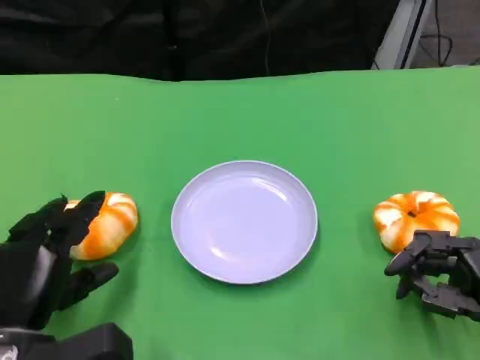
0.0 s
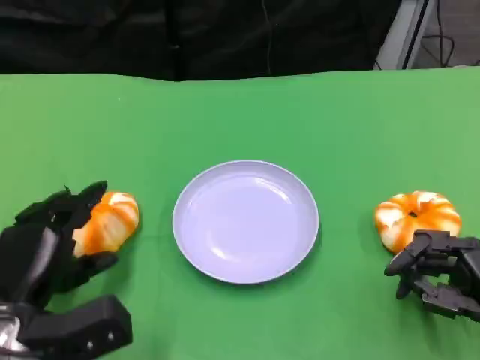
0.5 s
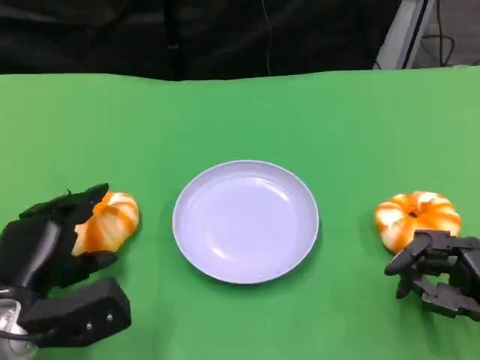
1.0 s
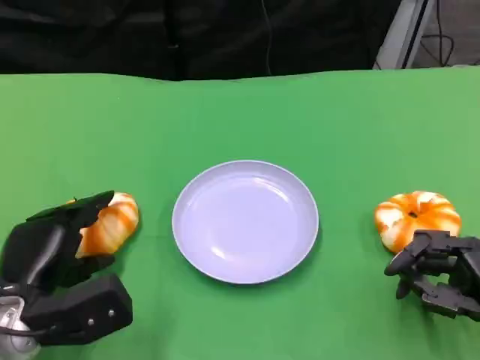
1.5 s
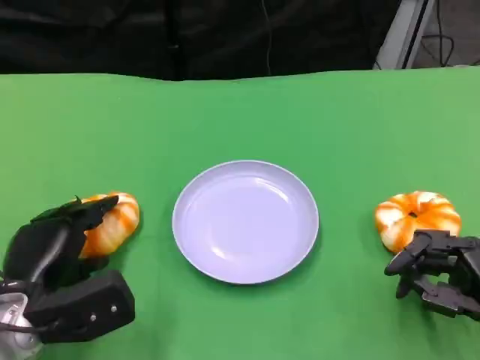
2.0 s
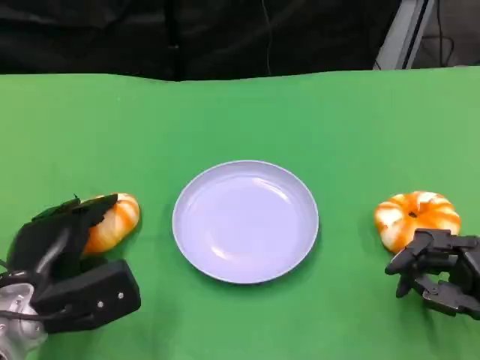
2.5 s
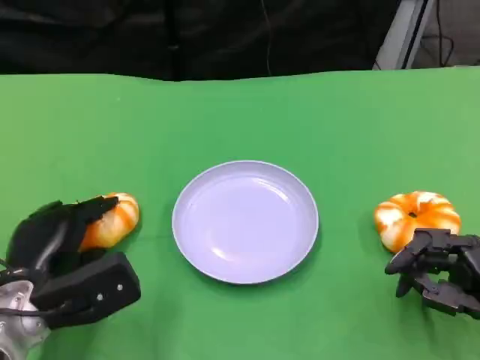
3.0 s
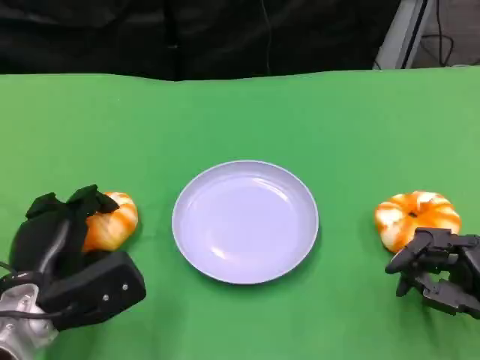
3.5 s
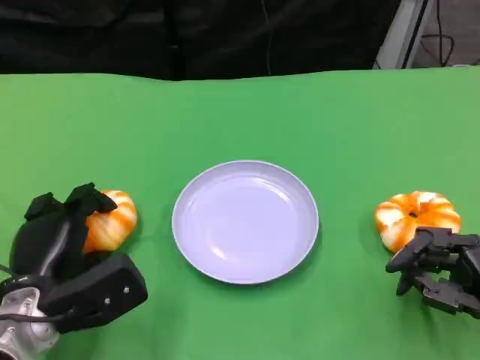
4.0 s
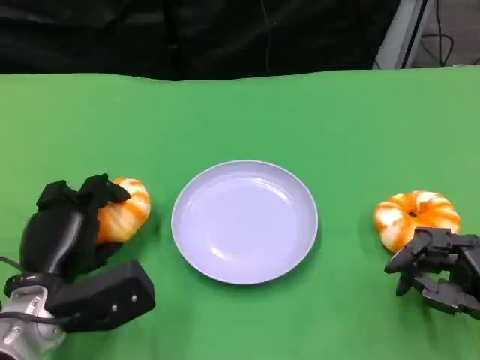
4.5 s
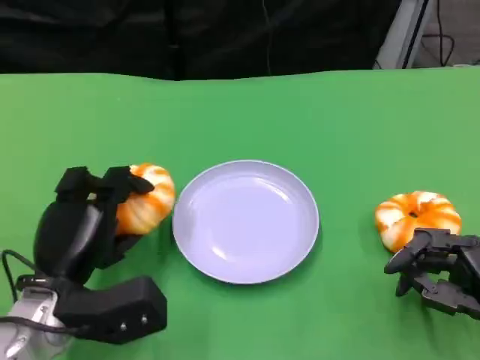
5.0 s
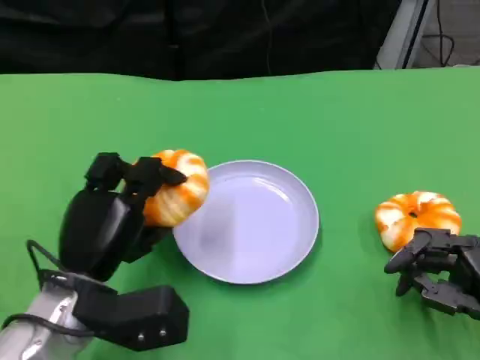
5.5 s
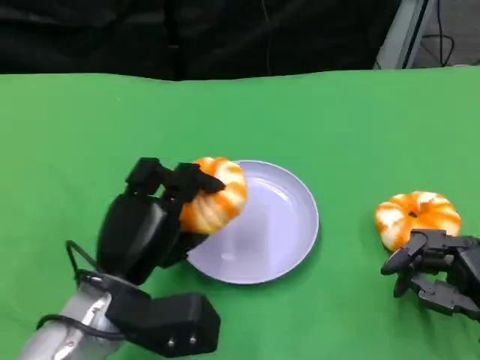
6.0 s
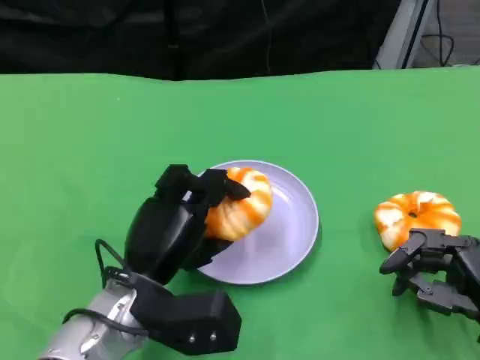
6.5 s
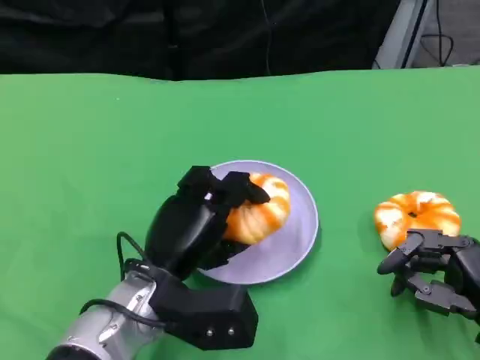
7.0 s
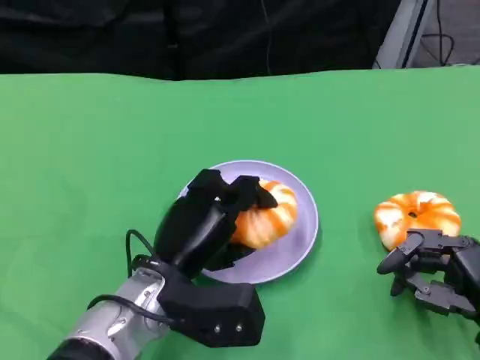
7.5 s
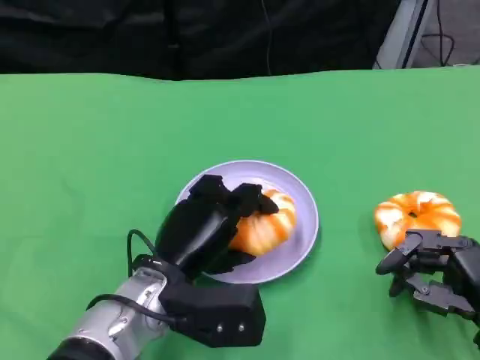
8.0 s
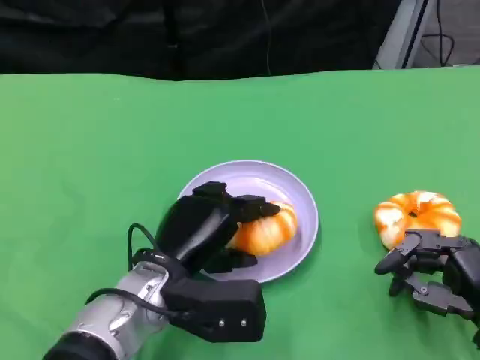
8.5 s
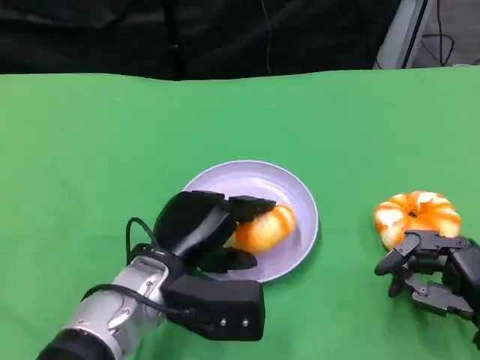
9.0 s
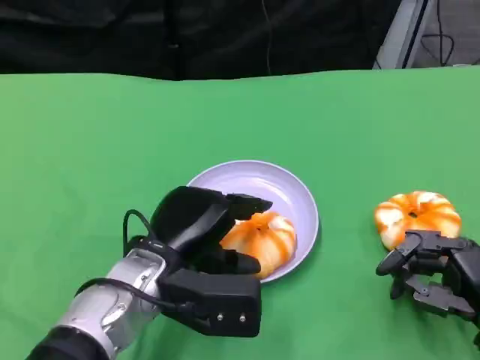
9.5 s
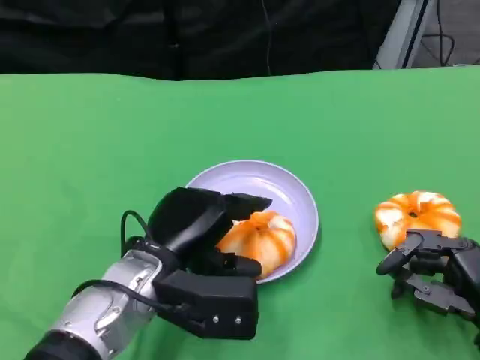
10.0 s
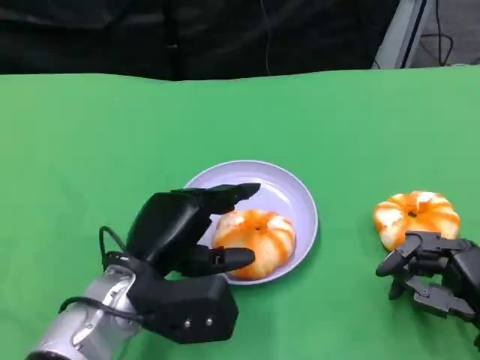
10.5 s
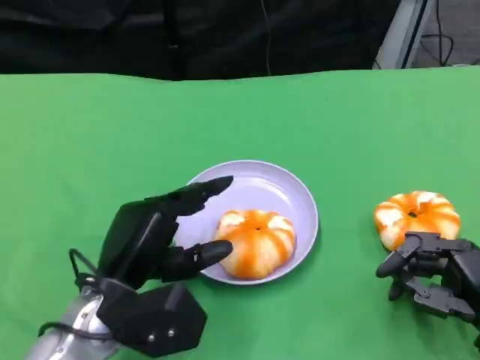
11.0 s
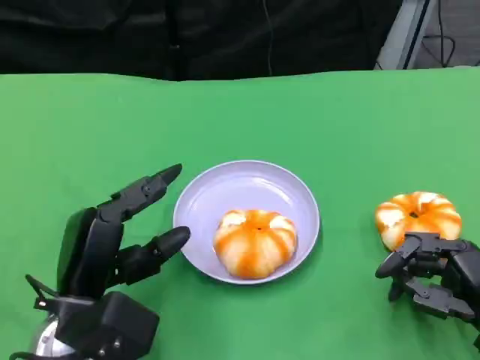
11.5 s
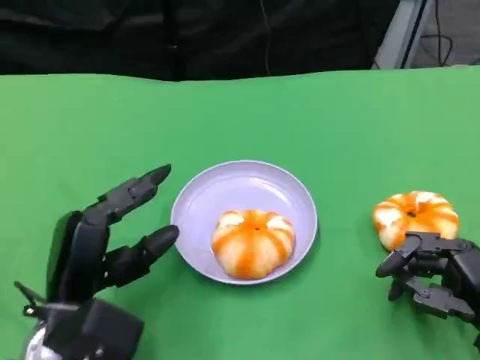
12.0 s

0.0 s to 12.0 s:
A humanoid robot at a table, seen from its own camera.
Task of the whole recording: Grasp the bread from the table and place it into the plate.
2.0 to 4.0 s: The hands stay close to where they were, moving slightly.
4.0 to 6.0 s: The left hand heads to the right, covering approximately 5 cm.
6.0 to 8.0 s: The hands make only small movements.
8.0 to 10.0 s: There are only small adjustments of the hands.
10.0 to 12.0 s: The left hand is displaced to the left by approximately 5 cm.

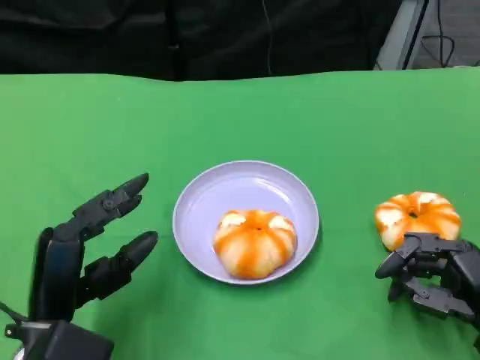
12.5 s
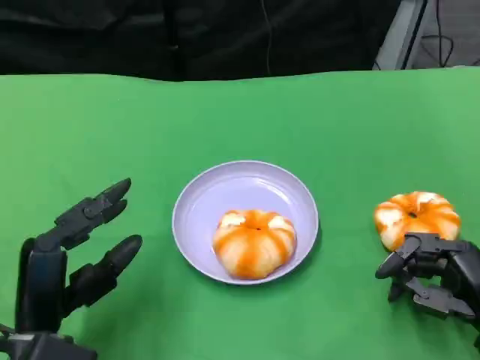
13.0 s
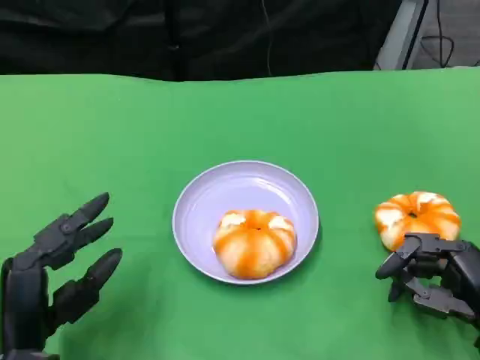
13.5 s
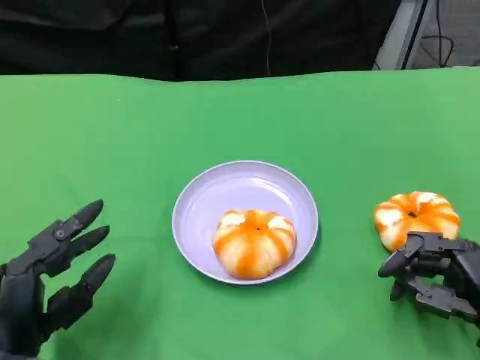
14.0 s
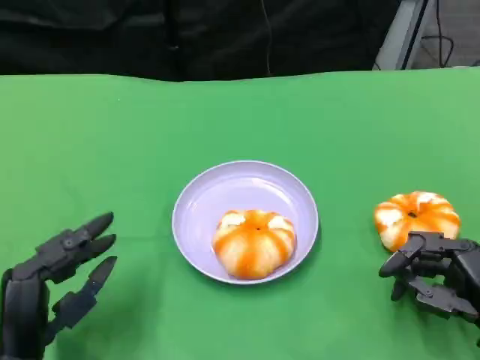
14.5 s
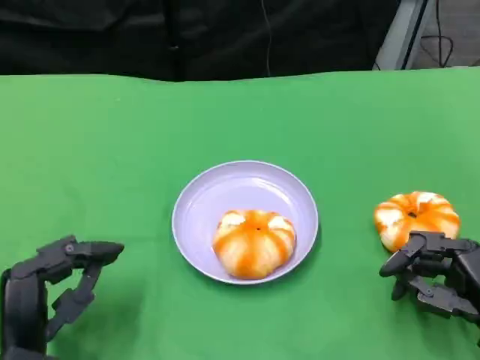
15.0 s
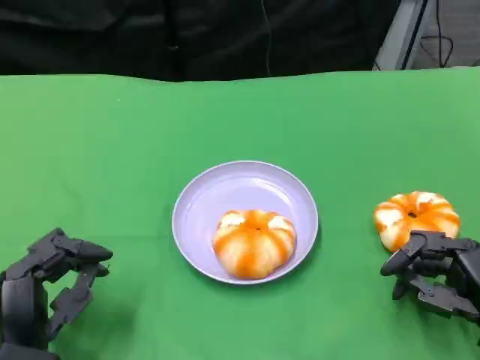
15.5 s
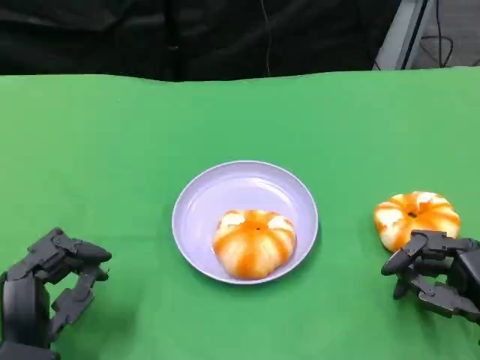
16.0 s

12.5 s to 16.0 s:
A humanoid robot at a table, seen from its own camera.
Task of the whole recording: Grasp the bread from the table and place it into the plate.
12.5 to 16.0 s: The hands move only a little.

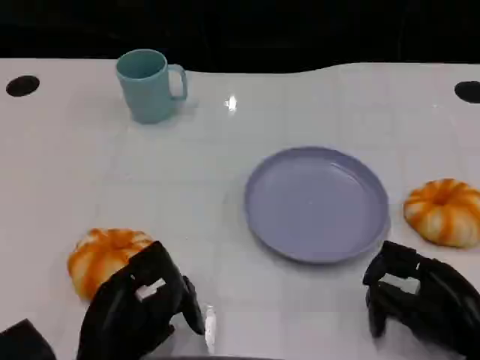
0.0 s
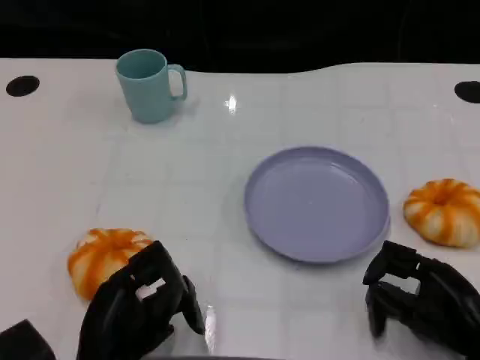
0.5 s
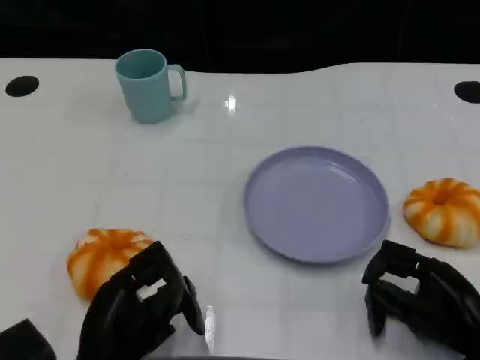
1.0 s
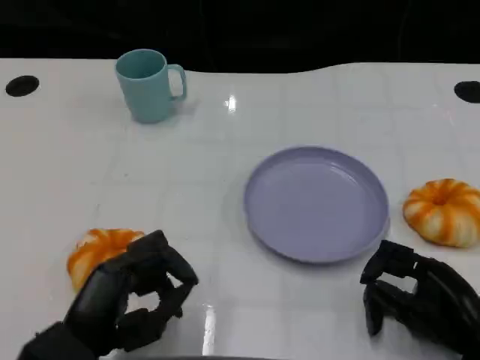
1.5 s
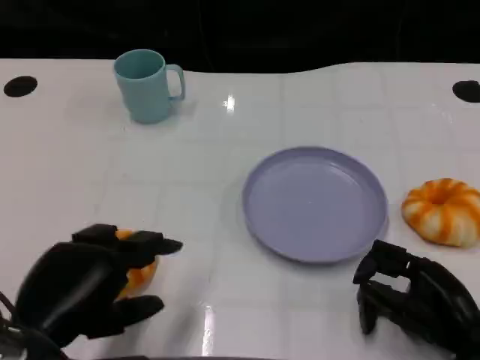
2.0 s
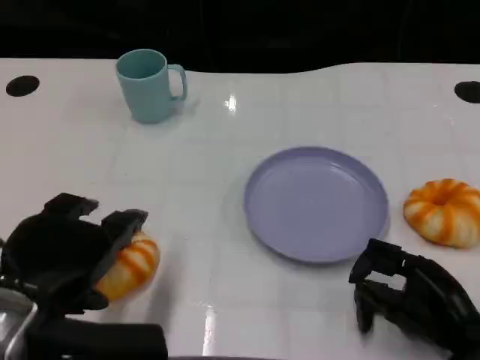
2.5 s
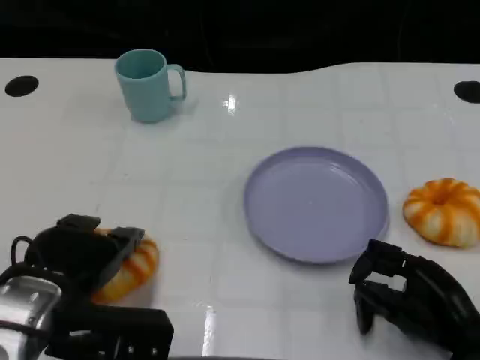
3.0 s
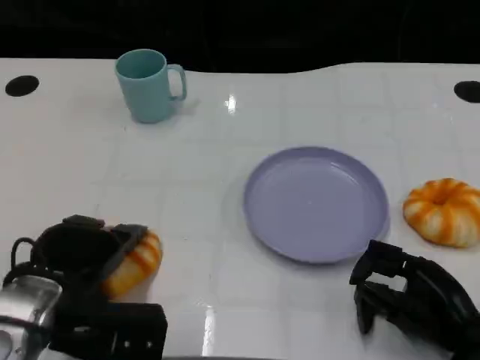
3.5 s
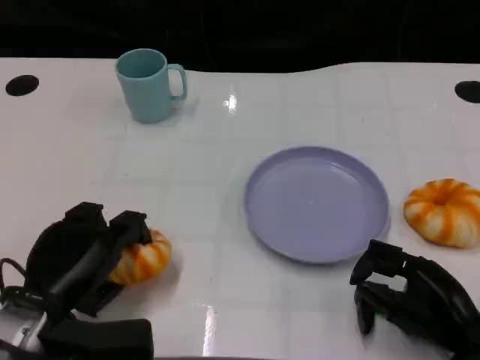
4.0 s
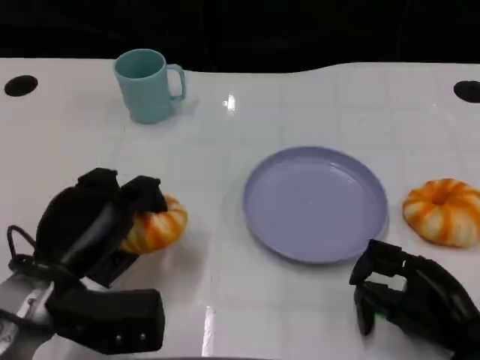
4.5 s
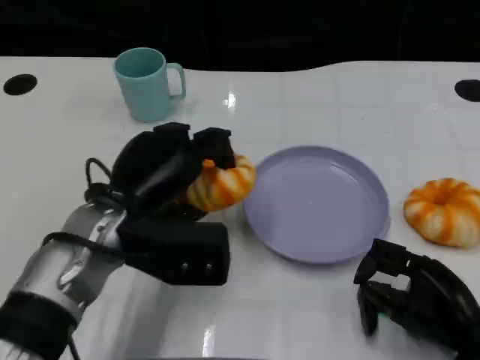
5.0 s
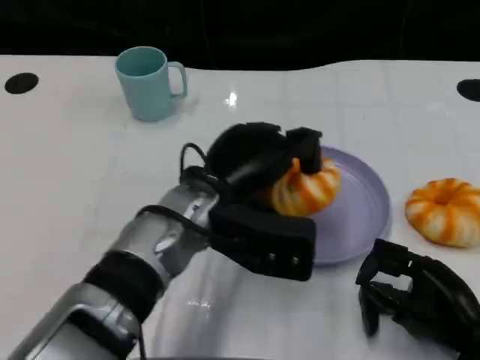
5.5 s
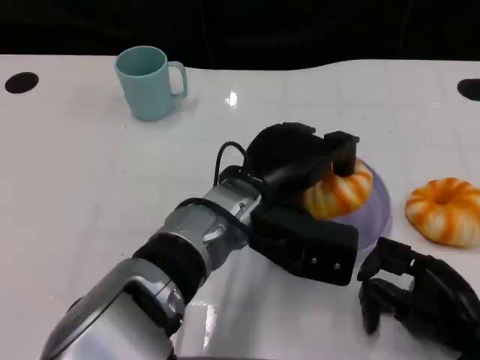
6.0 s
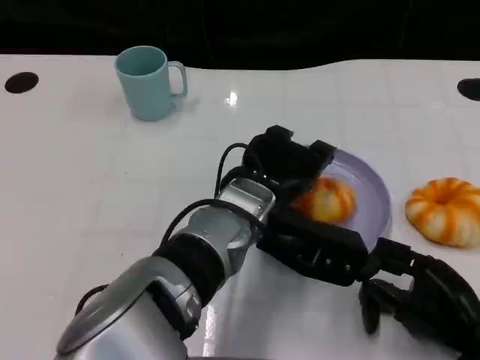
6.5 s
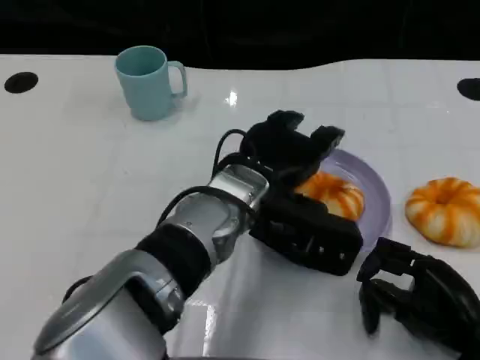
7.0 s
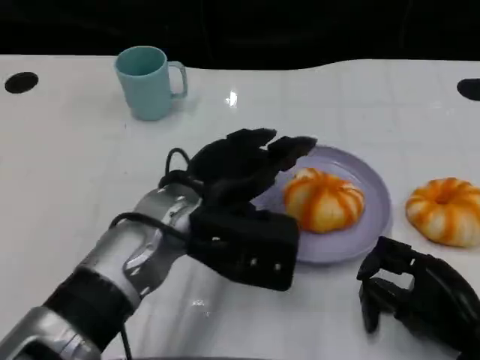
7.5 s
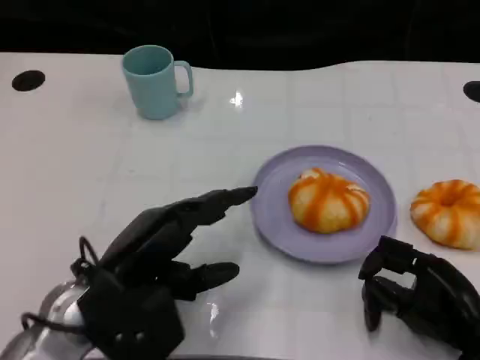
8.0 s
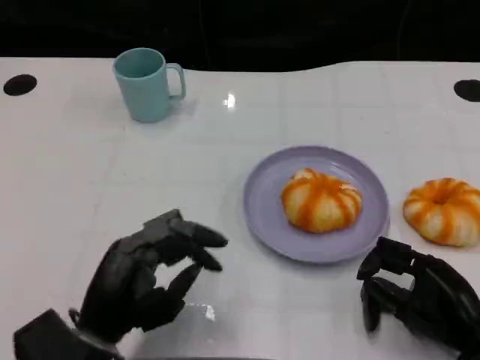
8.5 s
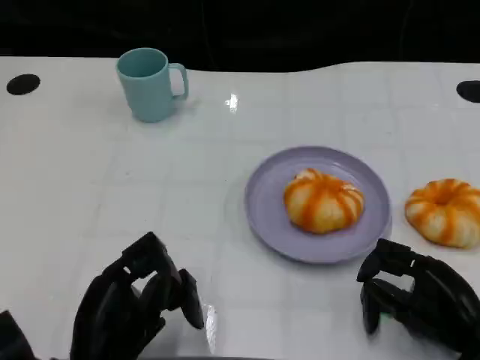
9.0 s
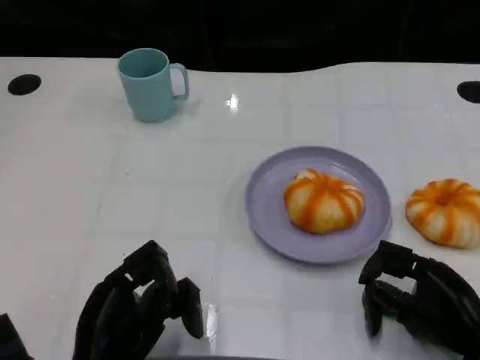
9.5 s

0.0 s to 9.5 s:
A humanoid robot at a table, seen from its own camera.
Task of the whole recording: Grasp the bread from the table and place it into the plate.
0.0 to 2.0 s: The left hand travels upward by roughly 10 cm.
2.0 to 4.0 s: The left hand moves downward and forward, approximately 10 cm.
4.0 to 5.5 s: The left hand moves to the right, forward and upward, approximately 20 cm.
7.5 to 9.5 s: The left hand goes roughly 20 cm backward, downward and to the left.

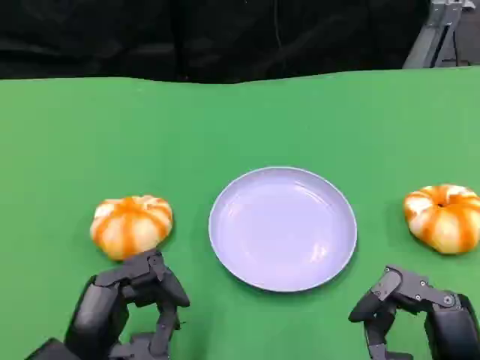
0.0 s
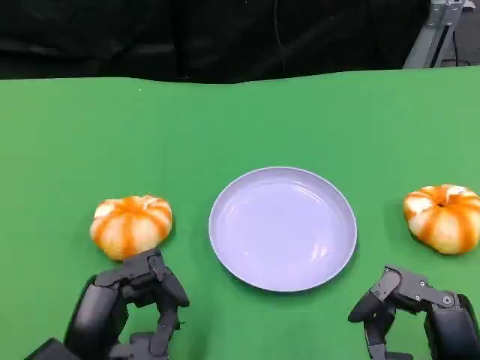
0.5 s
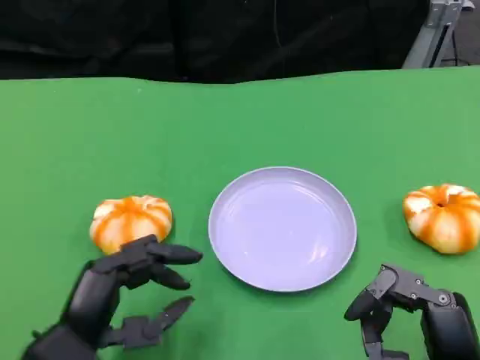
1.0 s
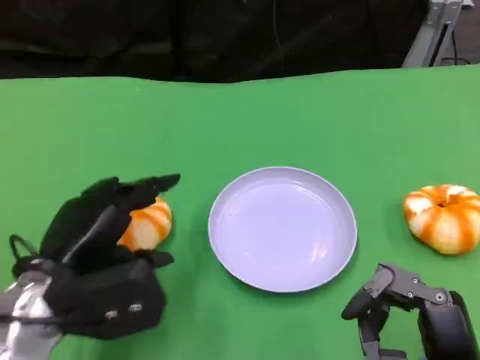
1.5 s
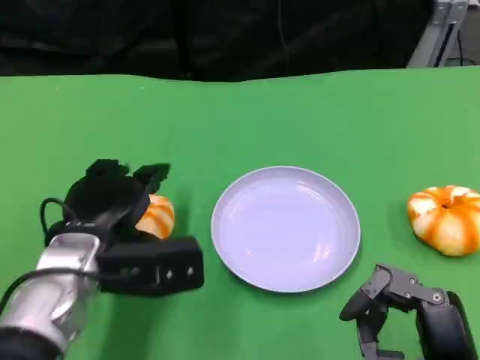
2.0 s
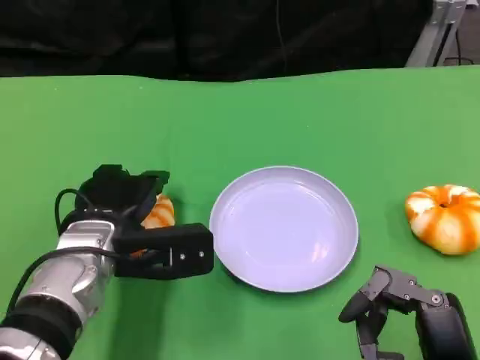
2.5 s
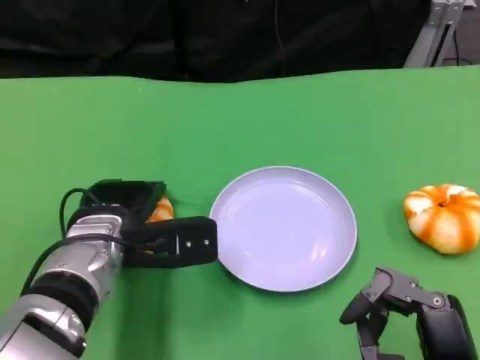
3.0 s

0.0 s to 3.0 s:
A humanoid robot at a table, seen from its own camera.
Task of the whole recording: Grasp the bread from the table and place it into the plate.
0.0 to 1.5 s: The left hand heads forward and upward, covering about 10 cm.
1.5 to 3.0 s: The left hand goes roughly 5 cm forward.
